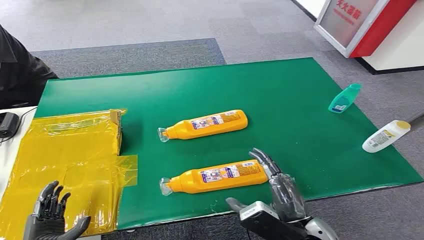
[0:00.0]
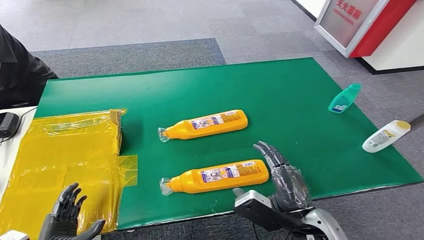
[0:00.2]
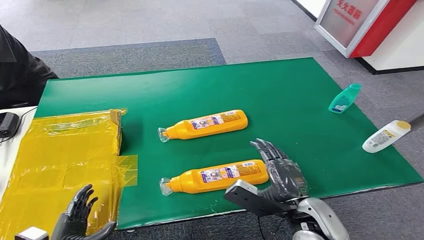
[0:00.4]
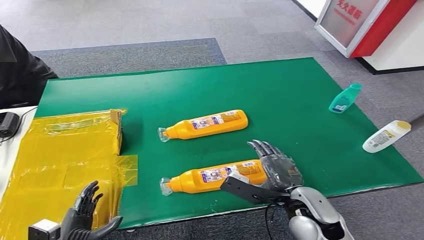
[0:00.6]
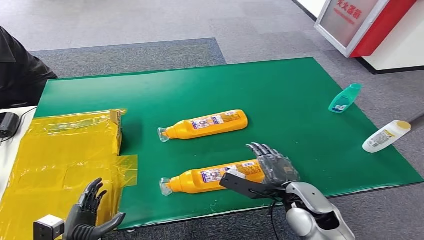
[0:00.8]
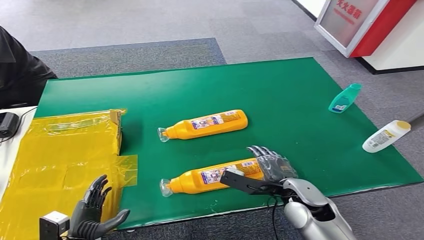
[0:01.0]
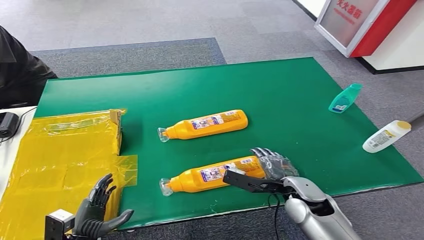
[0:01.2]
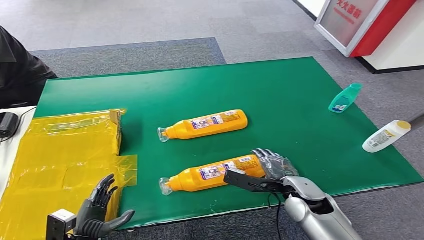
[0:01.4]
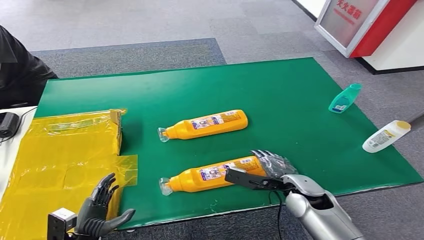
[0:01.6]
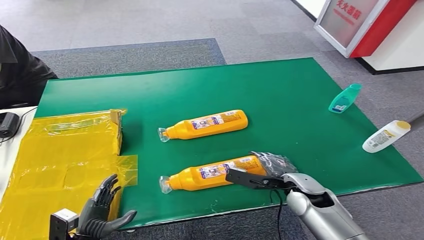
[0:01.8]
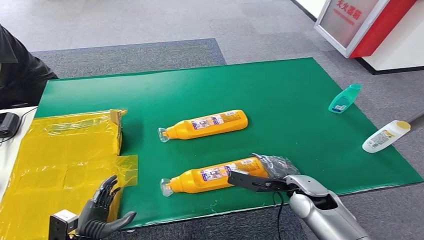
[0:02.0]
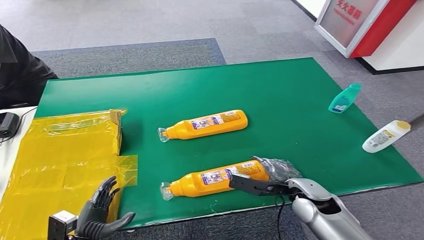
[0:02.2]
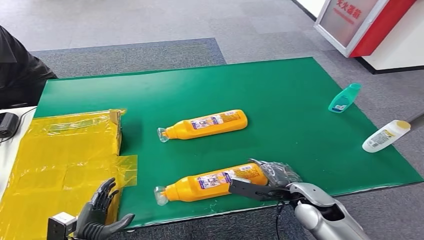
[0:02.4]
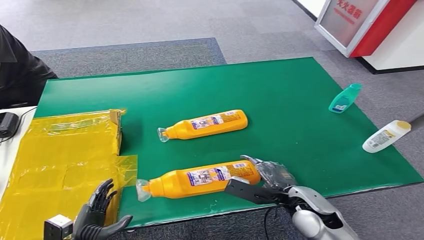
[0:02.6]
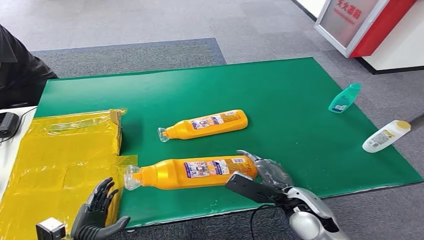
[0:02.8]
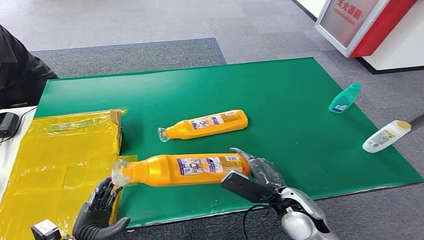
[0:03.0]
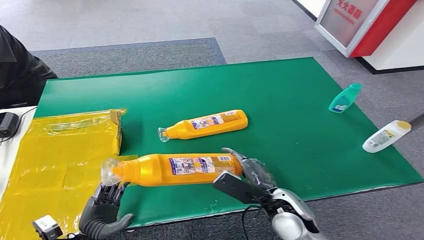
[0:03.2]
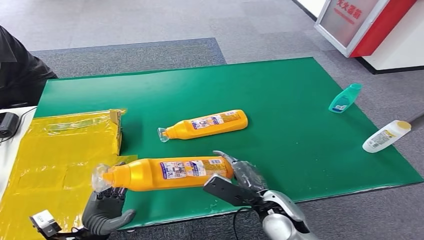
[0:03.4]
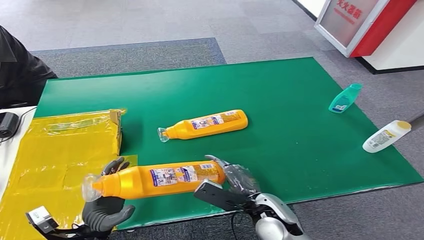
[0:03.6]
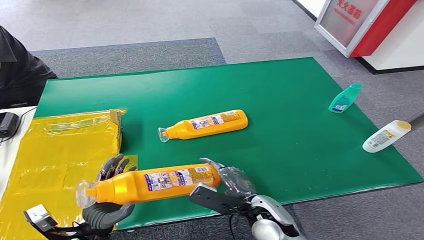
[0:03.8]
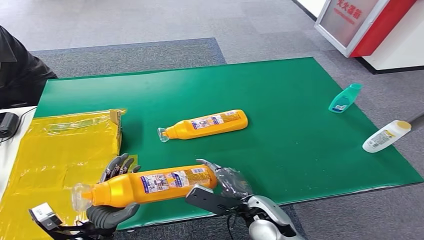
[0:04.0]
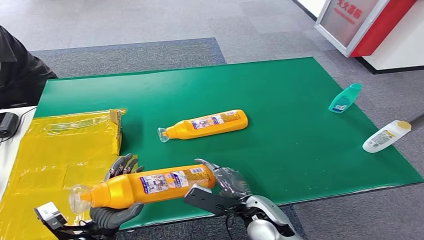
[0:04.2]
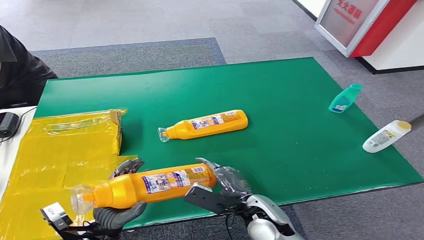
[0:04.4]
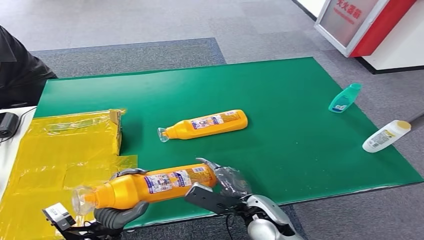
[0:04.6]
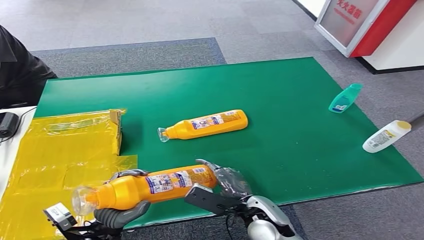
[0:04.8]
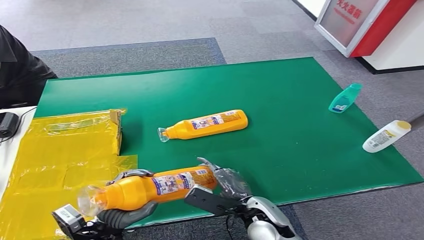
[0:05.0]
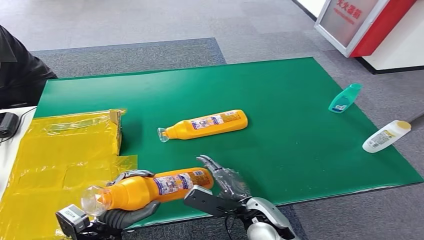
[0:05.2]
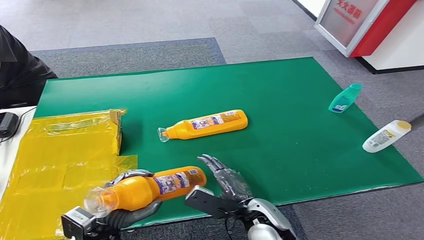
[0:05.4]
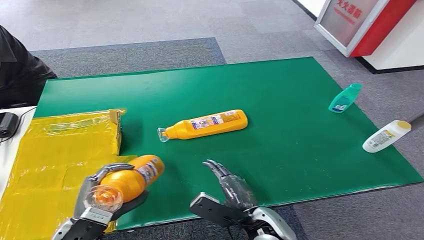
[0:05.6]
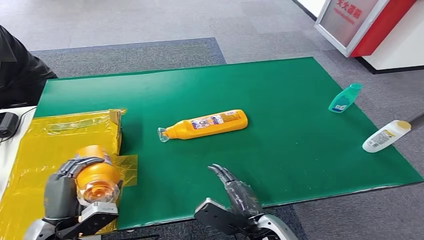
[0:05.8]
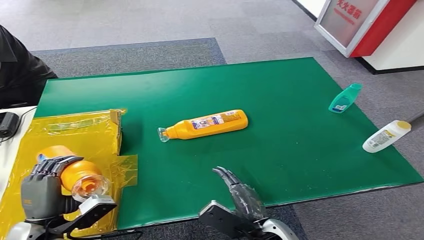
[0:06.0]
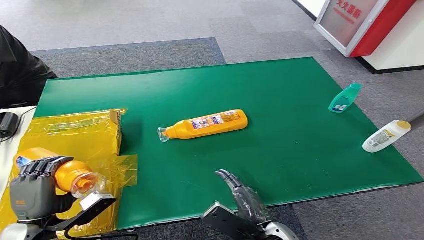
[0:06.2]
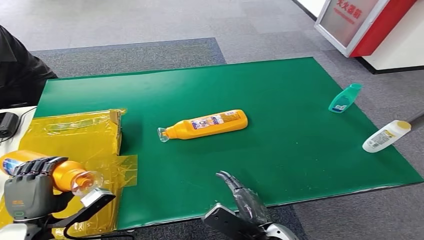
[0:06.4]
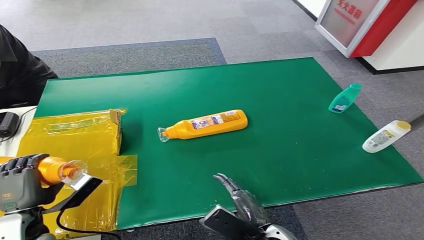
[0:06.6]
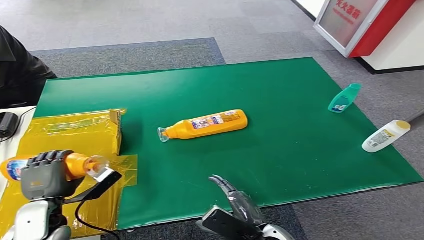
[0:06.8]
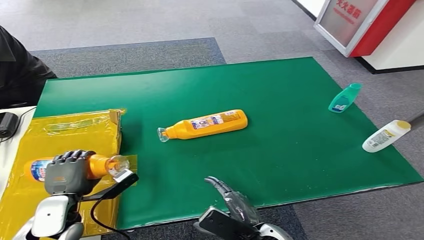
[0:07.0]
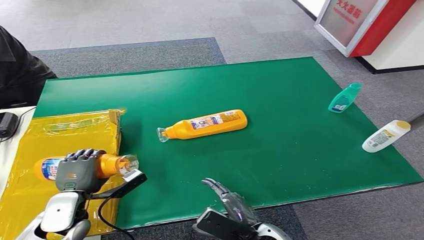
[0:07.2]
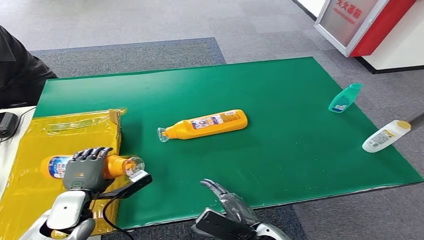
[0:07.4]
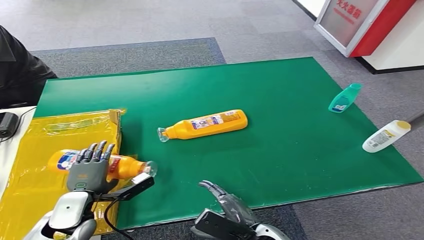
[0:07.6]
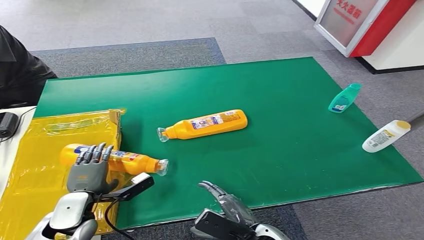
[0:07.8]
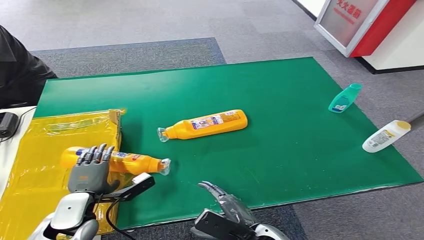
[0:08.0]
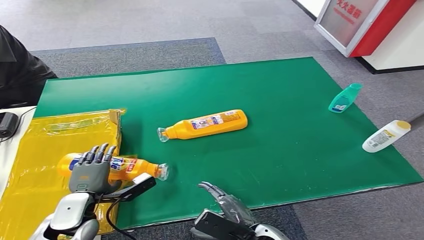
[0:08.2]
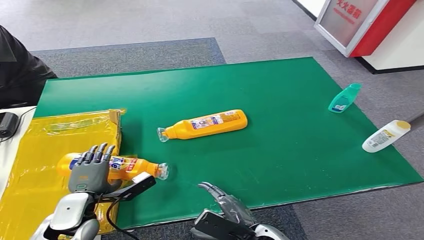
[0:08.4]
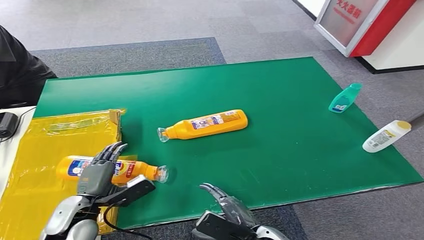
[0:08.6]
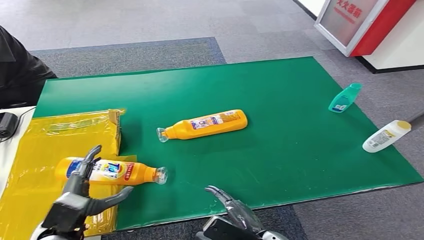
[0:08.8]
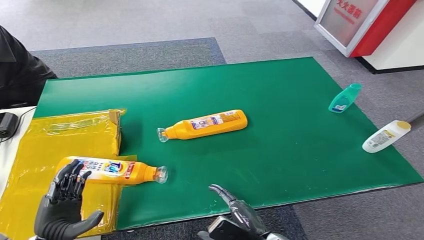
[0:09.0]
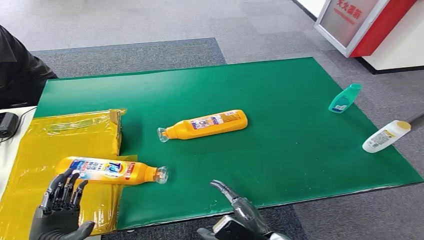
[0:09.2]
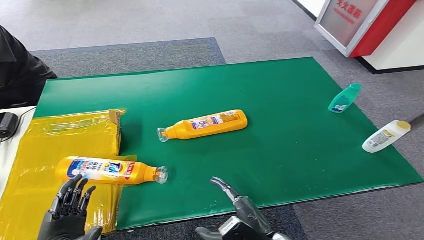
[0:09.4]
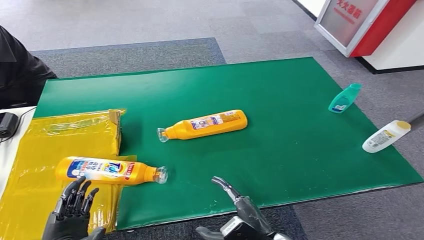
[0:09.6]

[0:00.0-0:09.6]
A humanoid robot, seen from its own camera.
Step, 0:00.0 to 0:03.2: Pick up the bottle from the table.
Step, 0:03.4 to 0:09.6: Turn the bottle to the front side.
0:01.6 to 0:03.2: The right hand travels to the left by approximately 5 cm.
0:03.2 to 0:04.8: The left hand moves upward and to the right, approximately 10 cm, while the right hand goes some 5 cm to the left.
0:04.8 to 0:06.4: The left hand heads to the left and upward, covering approximately 10 cm. Meanwhile the right hand travels backward by roughly 10 cm.
0:06.4 to 0:08.0: The left hand goes some 10 cm forward and to the right.
0:08.0 to 0:09.6: The left hand travels backward by about 15 cm.
